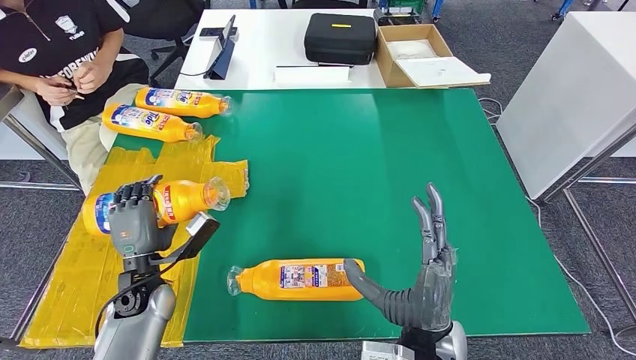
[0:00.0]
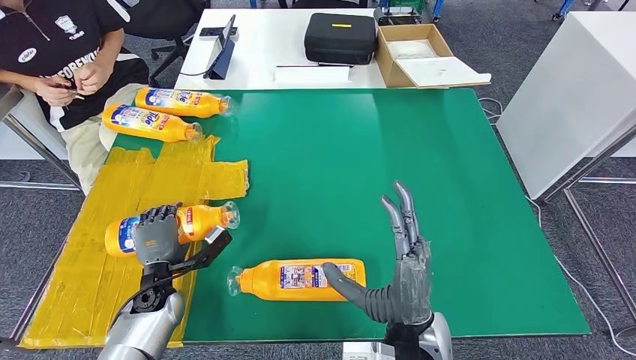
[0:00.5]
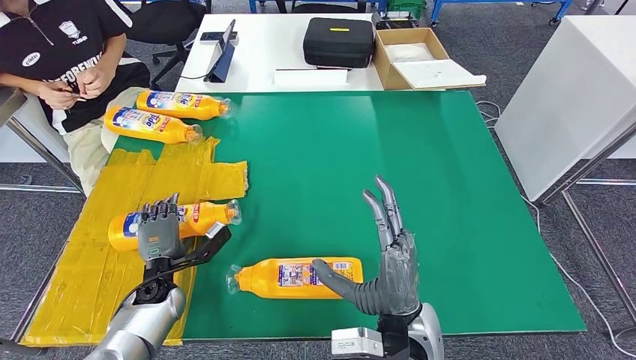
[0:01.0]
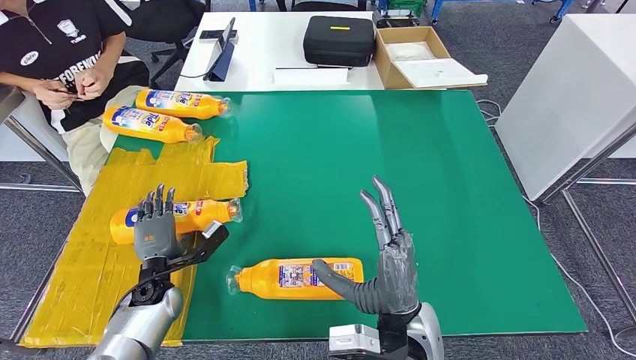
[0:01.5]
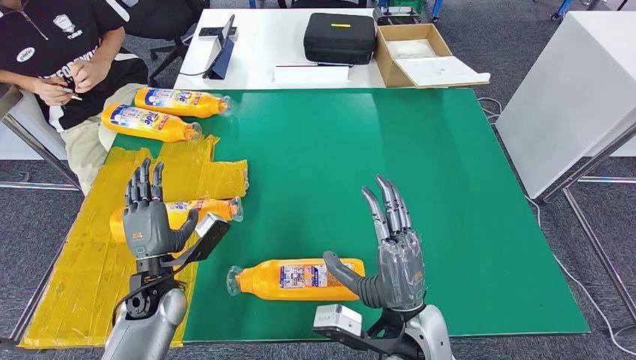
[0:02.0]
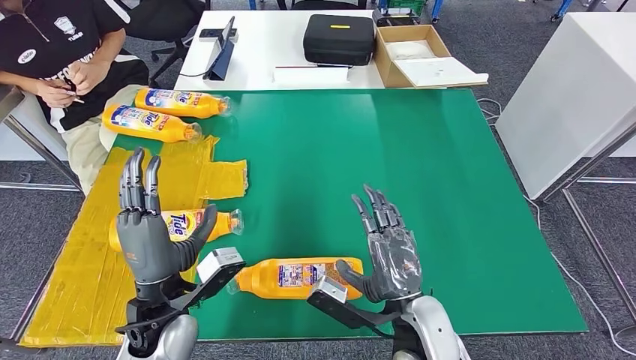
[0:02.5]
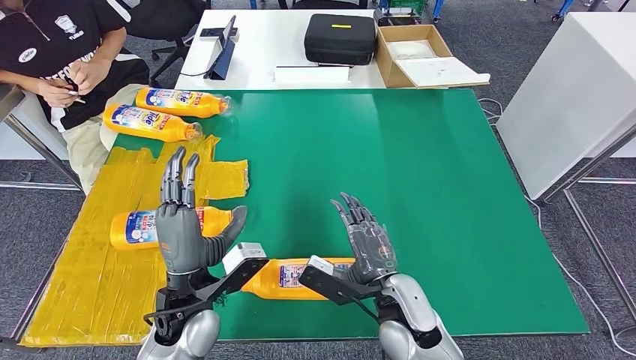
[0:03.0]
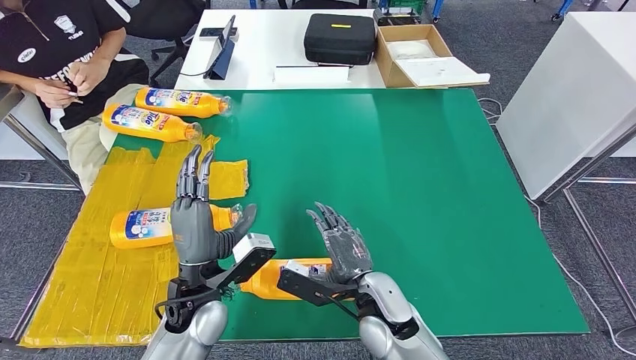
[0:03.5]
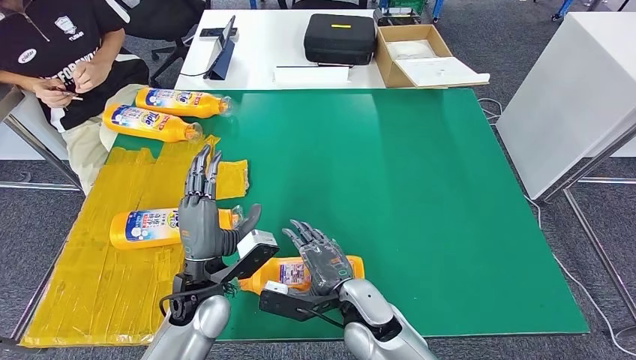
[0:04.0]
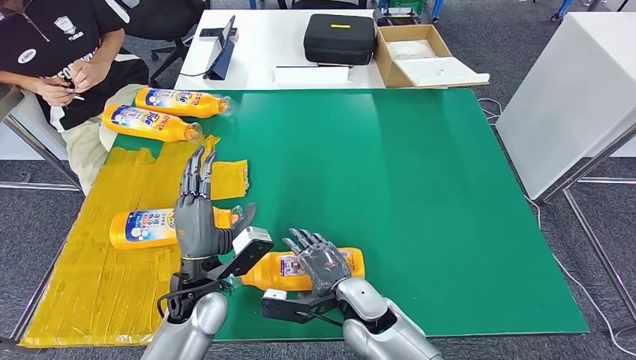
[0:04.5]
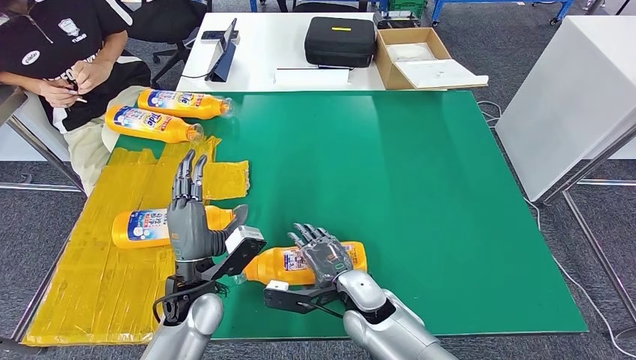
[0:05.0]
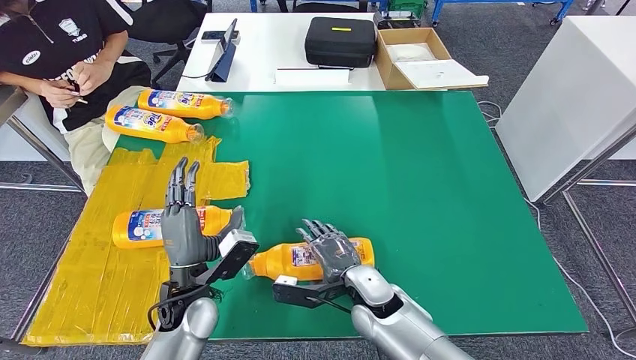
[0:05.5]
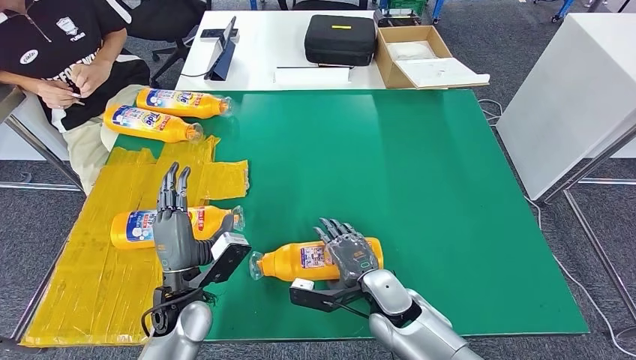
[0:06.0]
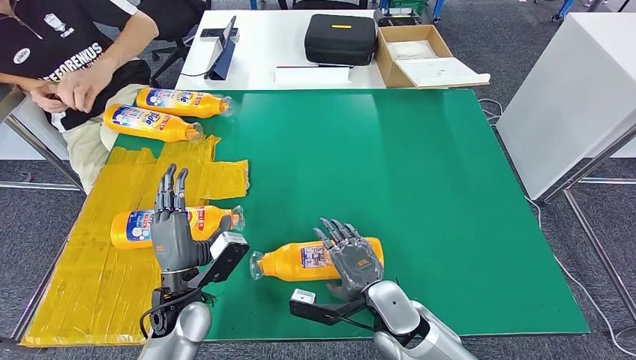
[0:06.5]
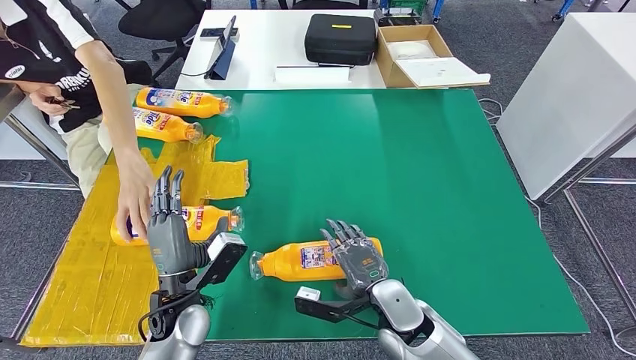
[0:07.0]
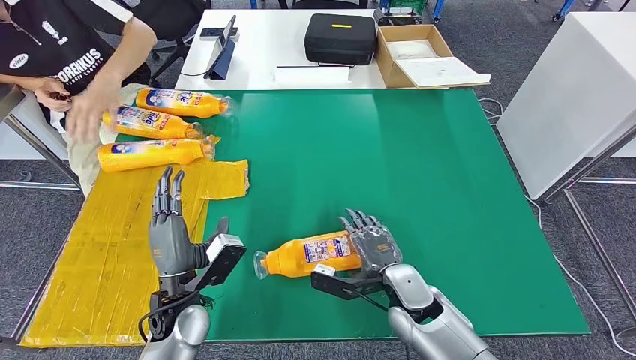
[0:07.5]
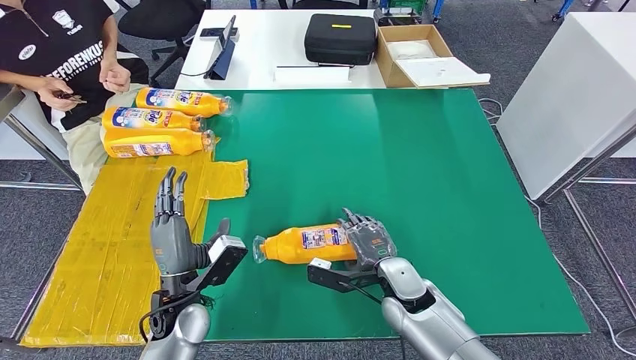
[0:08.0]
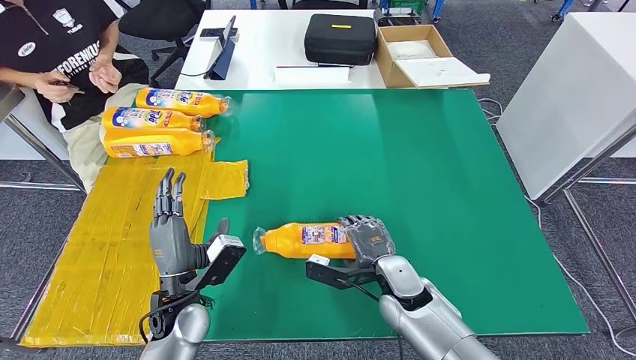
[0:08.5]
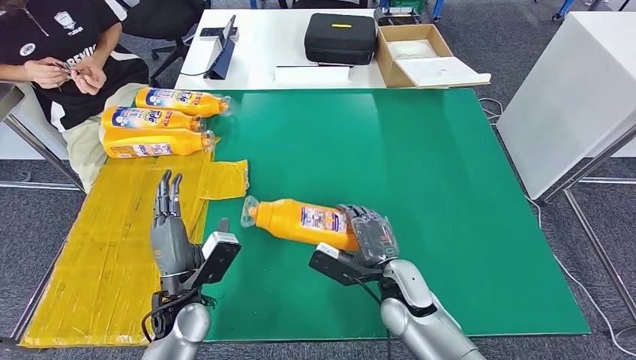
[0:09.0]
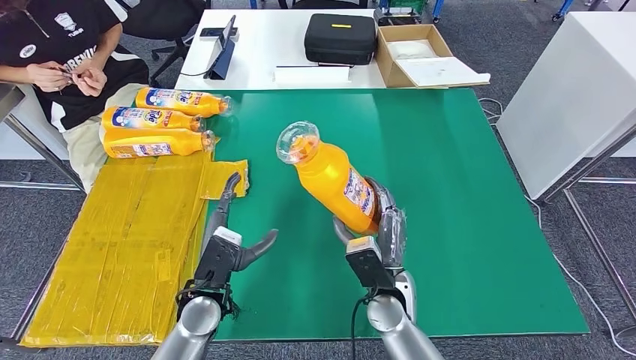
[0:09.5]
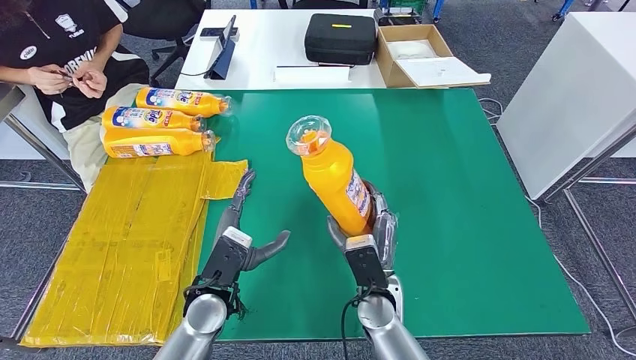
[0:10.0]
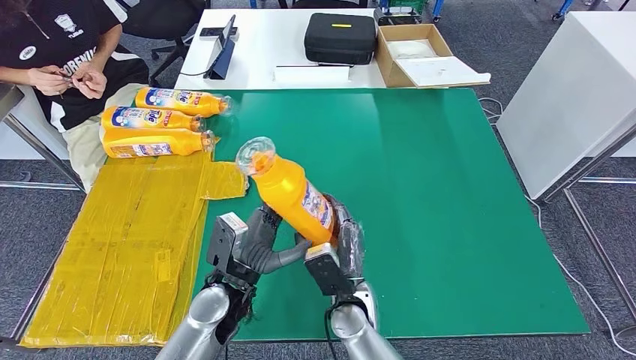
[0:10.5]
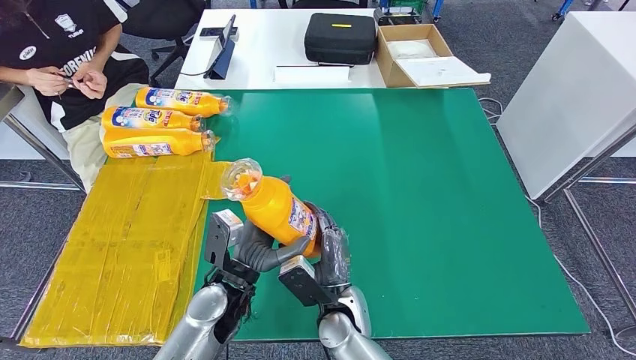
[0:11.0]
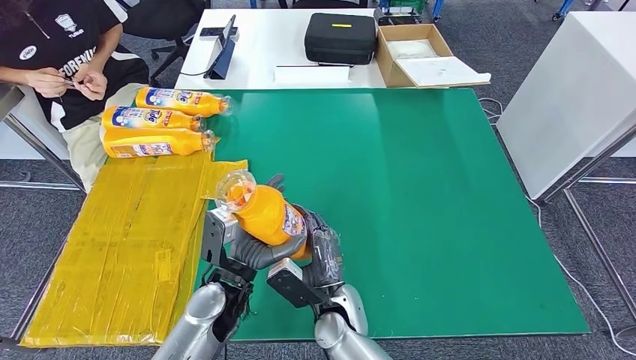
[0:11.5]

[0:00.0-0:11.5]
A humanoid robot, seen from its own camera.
Step, 0:02.0 to 0:09.0: Pick up the fast-moving consumer goods bottle from the table.
0:02.0 to 0:04.0: The right hand moves downward, roughly 5 cm. The left hand shifts approximately 10 cm to the right.
0:04.0 to 0:06.0: The left hand changes place by approximately 5 cm. Meanwhile the right hand travels to the right by about 5 cm.
0:06.0 to 0:07.5: There are only small adjustments of the hands.
0:07.5 to 0:09.5: The right hand moves roughly 5 cm.
0:09.5 to 0:11.5: The right hand is displaced to the left by approximately 10 cm.

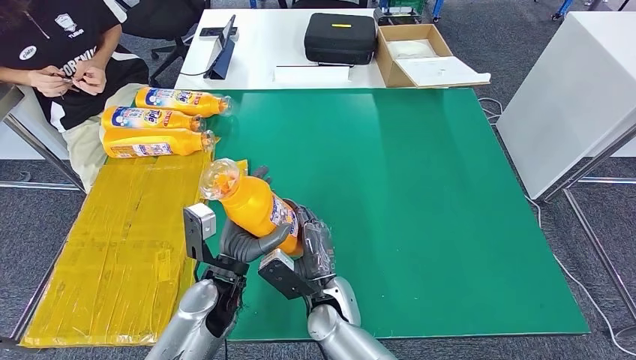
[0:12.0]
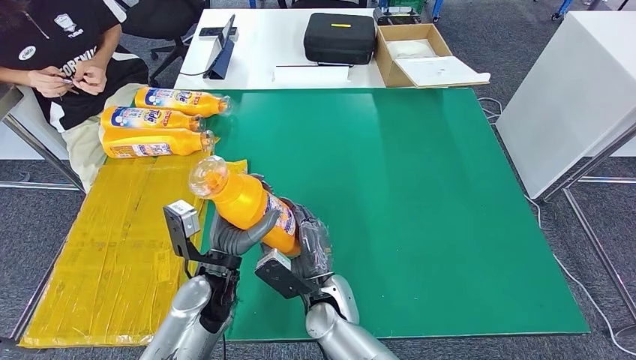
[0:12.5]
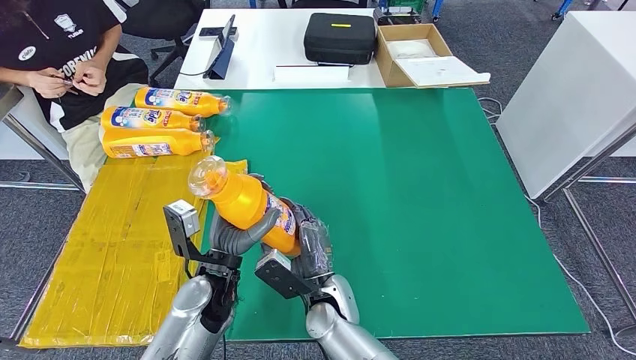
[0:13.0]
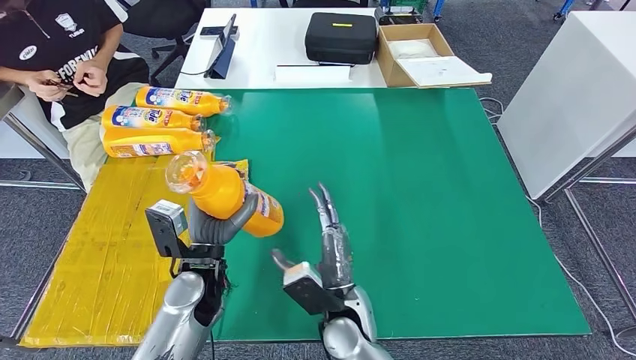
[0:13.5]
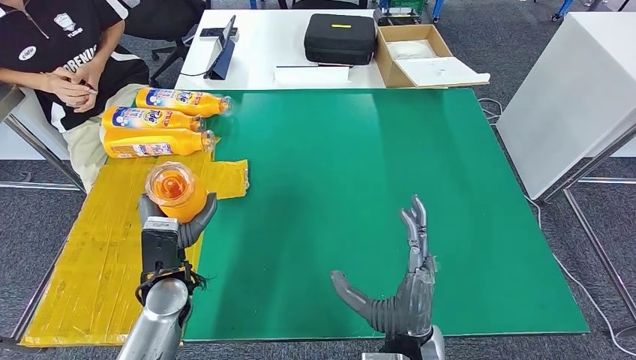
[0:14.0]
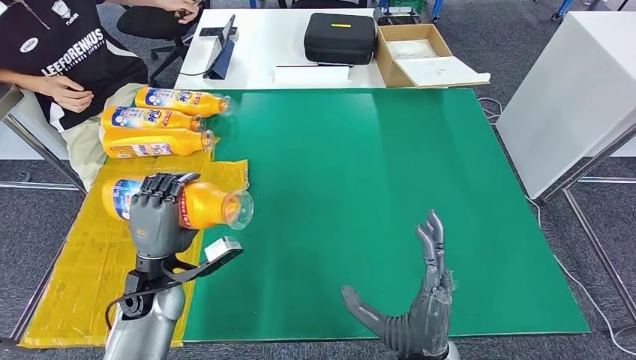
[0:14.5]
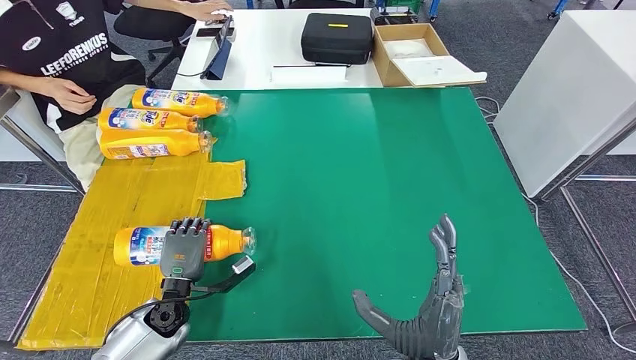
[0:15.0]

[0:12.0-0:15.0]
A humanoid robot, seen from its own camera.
Step, 0:12.0 to 0:15.0: Flip the fast-moving consumer goods bottle to the front side.

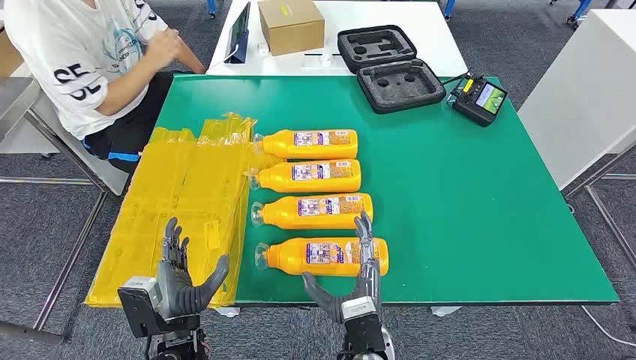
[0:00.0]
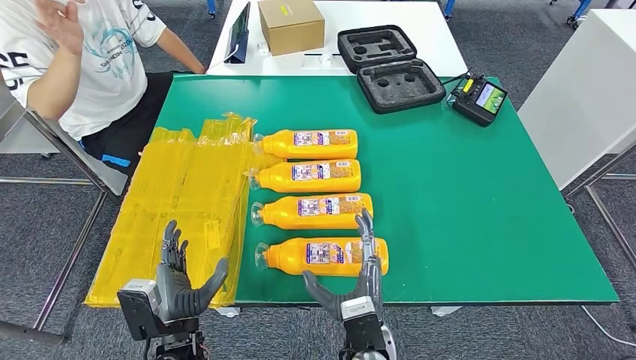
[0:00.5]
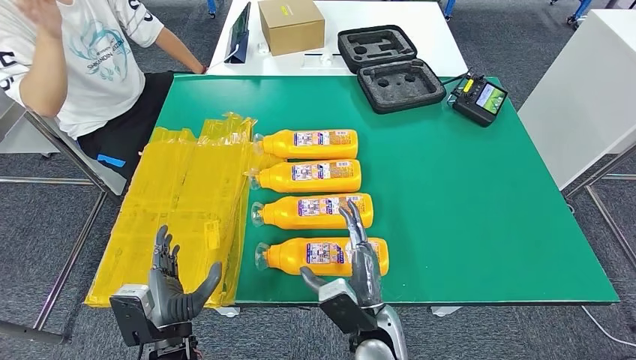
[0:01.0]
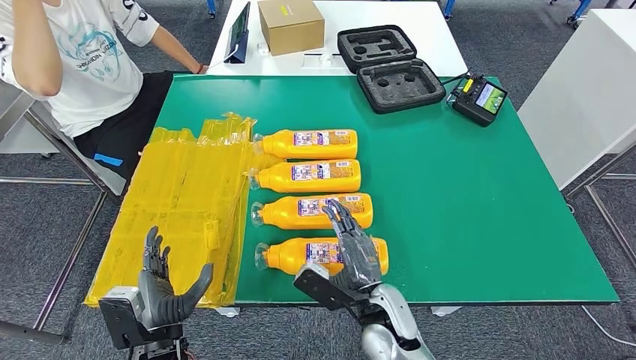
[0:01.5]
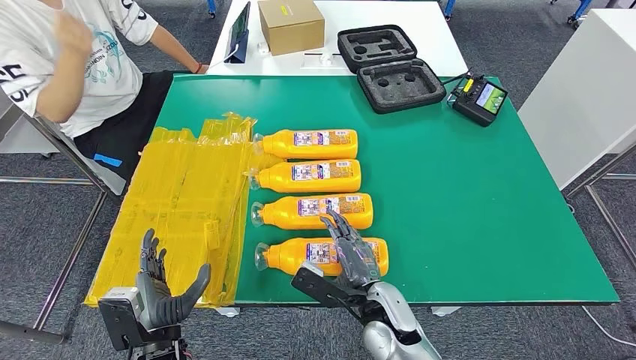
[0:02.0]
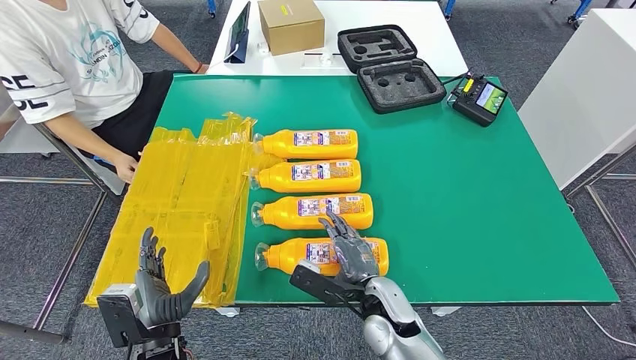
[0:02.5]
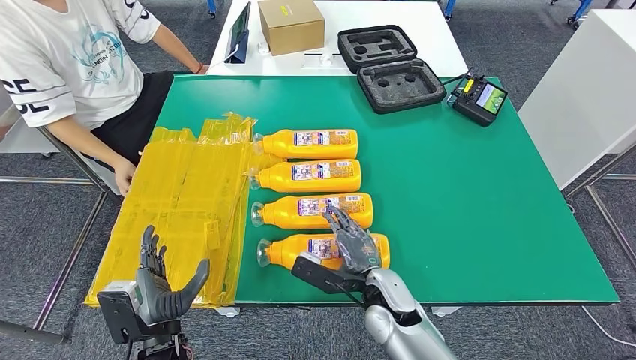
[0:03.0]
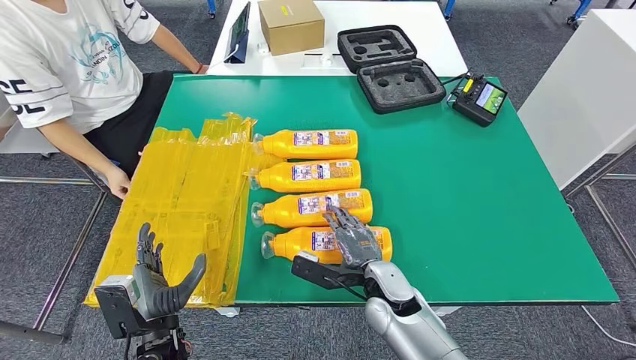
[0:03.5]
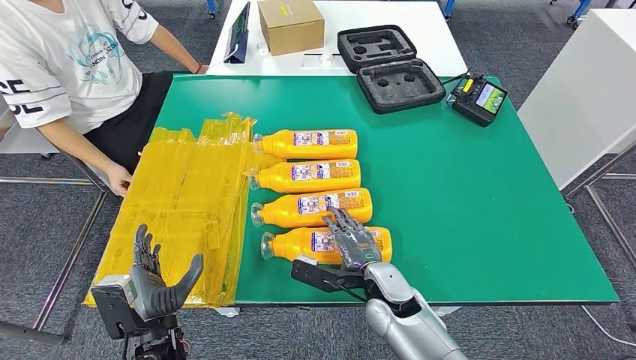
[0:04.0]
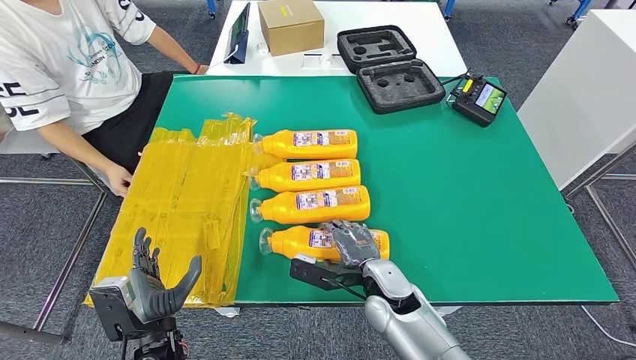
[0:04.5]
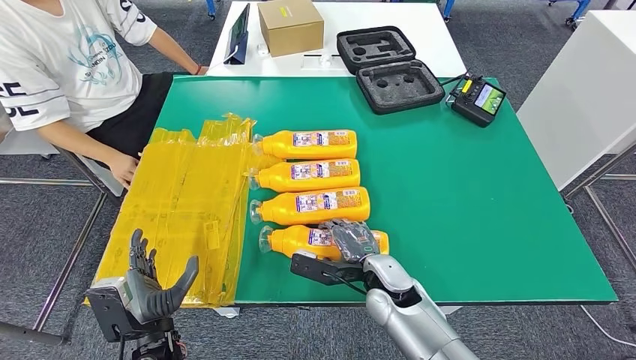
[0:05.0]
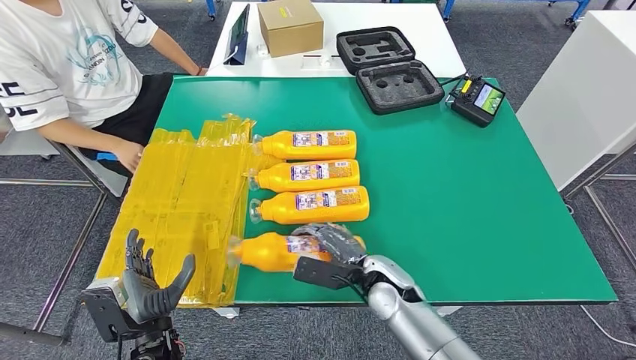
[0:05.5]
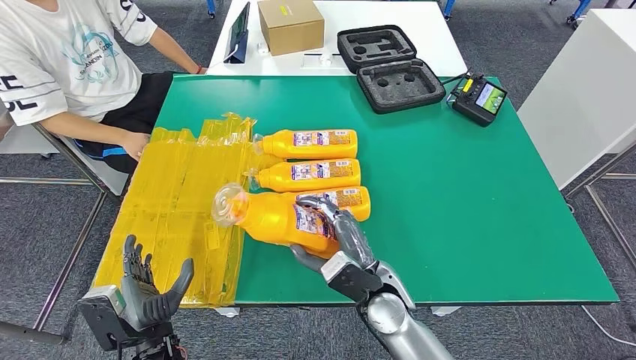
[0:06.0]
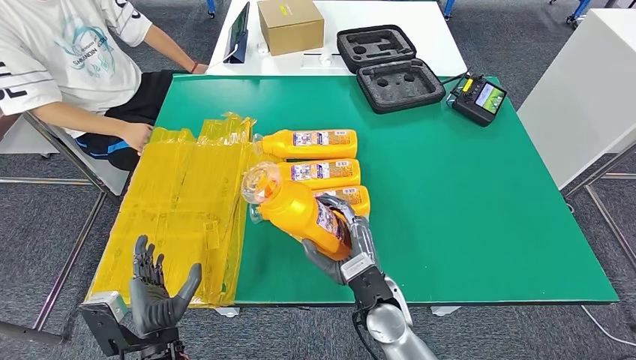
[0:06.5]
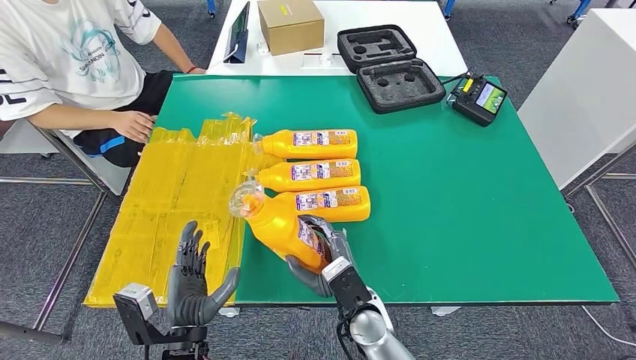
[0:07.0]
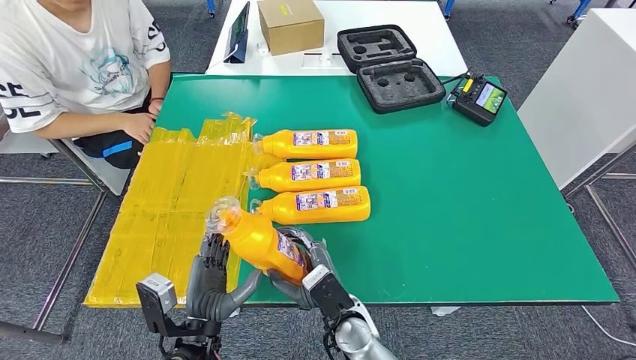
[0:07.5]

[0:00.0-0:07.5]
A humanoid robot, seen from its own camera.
Step, 0:00.0 to 0:07.0: Take the fast-moving consumer goods bottle from the table.
0:02.0 to 0:04.0: The hands move only a little.
